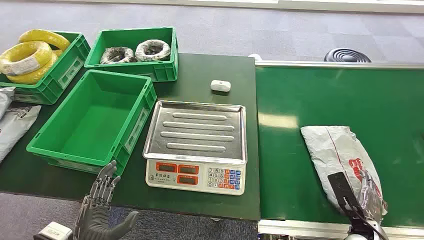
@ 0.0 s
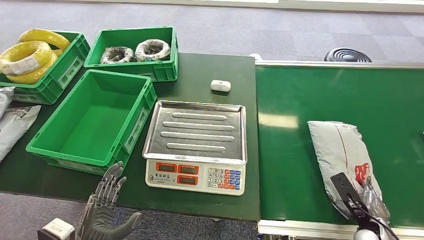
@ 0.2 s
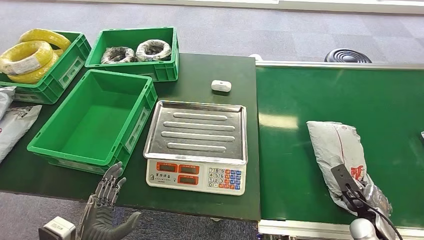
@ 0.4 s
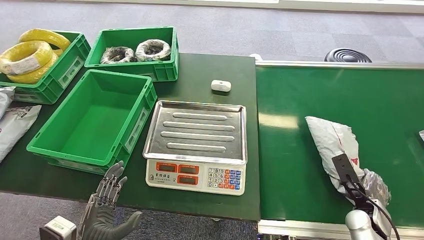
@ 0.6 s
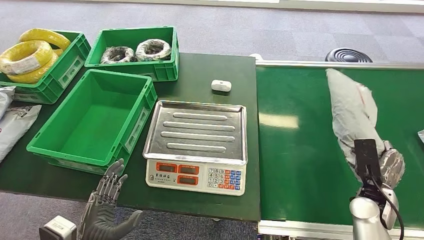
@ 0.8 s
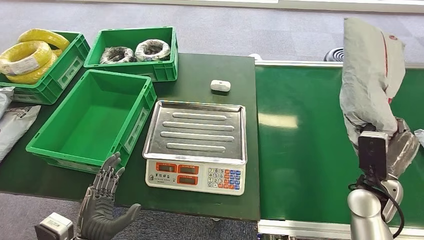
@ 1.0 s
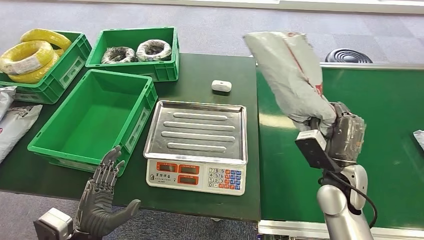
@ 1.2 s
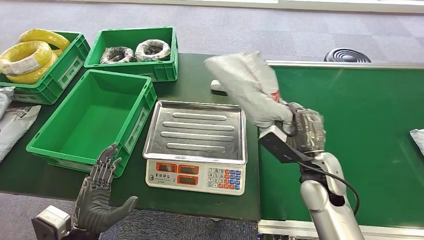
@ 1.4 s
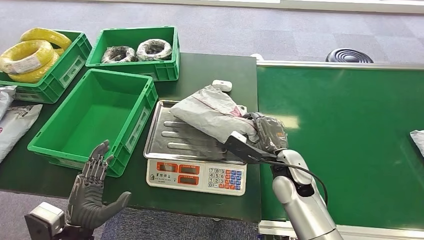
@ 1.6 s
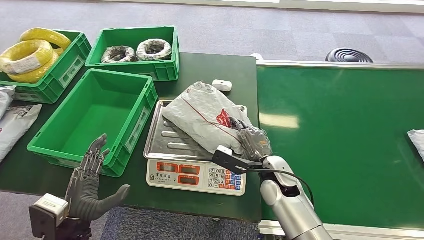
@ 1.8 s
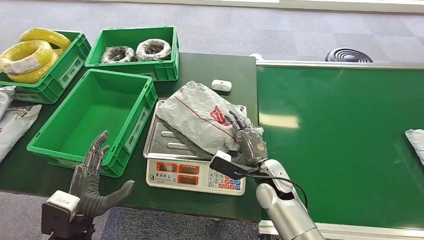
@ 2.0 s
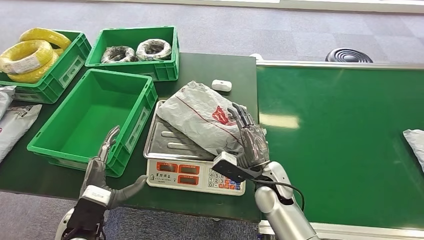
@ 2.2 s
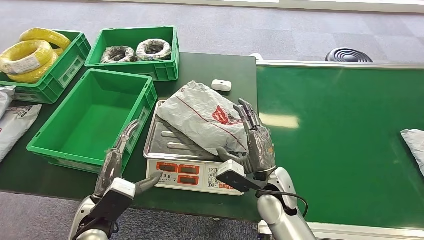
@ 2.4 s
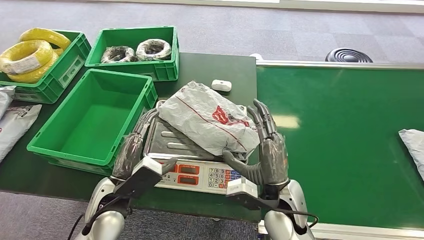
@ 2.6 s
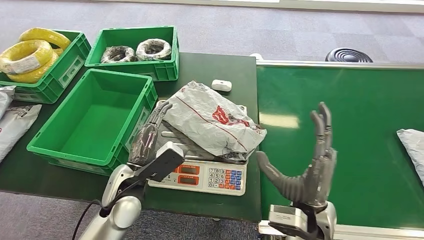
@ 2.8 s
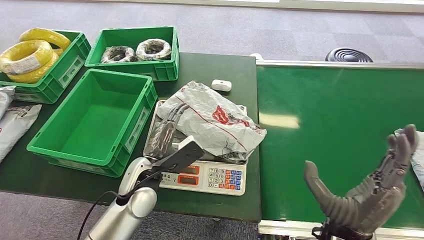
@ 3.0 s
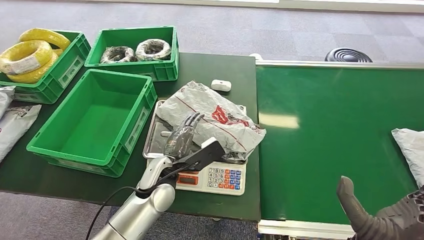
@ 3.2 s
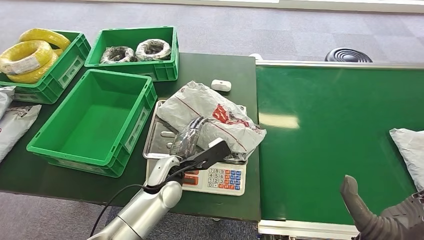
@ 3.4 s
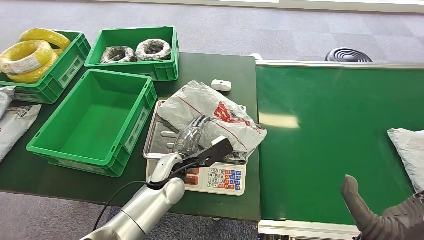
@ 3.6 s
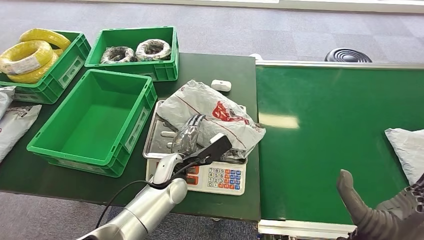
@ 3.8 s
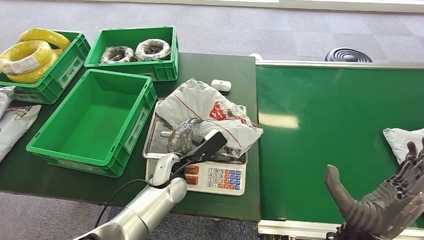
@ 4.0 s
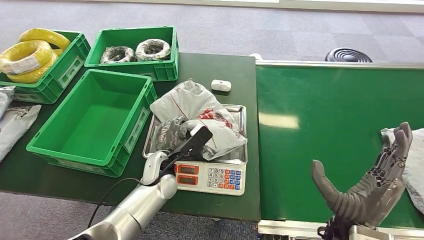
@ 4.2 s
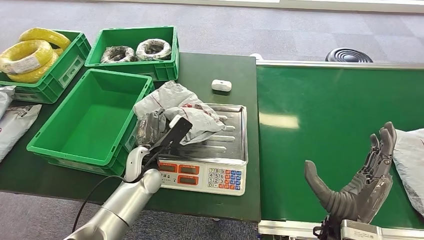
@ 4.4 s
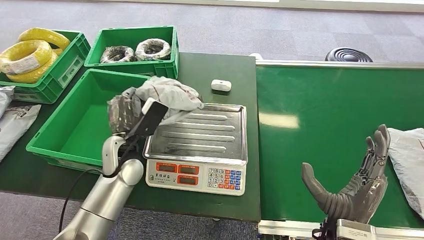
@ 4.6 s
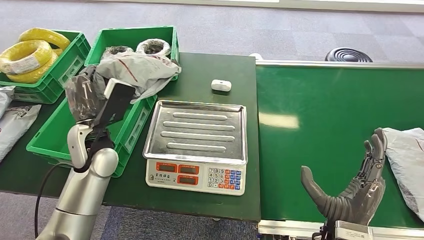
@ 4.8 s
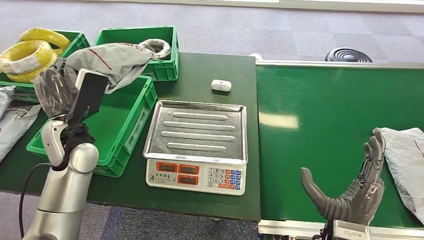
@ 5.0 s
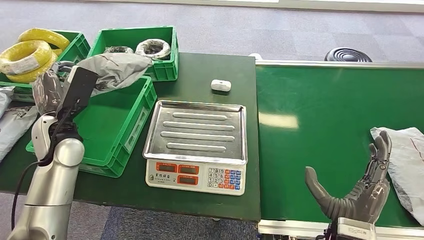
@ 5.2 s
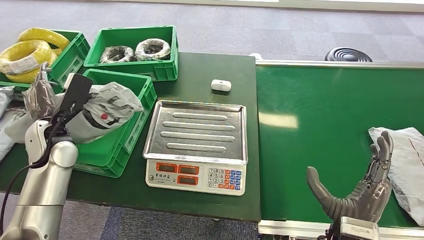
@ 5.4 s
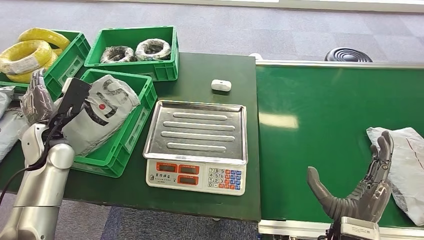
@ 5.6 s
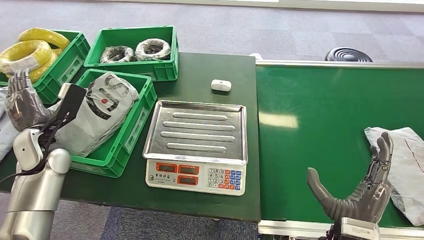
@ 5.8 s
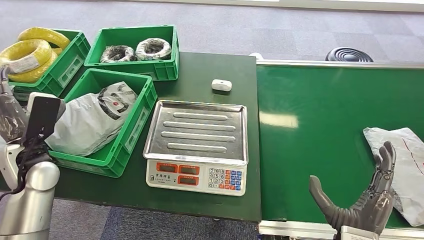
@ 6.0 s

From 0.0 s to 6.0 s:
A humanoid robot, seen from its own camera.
Step, from 0.0 s to 0.8 s: Pick up the package from the conveyor belt.
Step, from 1.2 s to 2.0 s: Place the package onto the inbound machine.
Step, from 2.2 s to 4.6 s: Pick up the package from the inbound machine.
Step, from 4.8 s to 6.0 s: Place the package into the parcel locker.
From 3.0 s to 4.4 s: The left hand moves forward, some 5 cm.

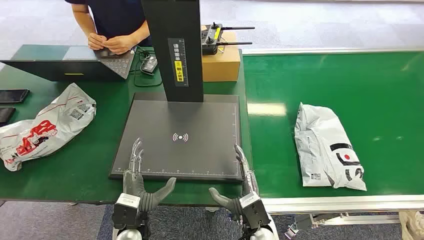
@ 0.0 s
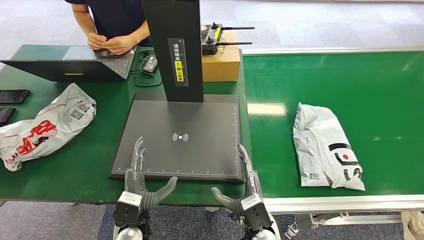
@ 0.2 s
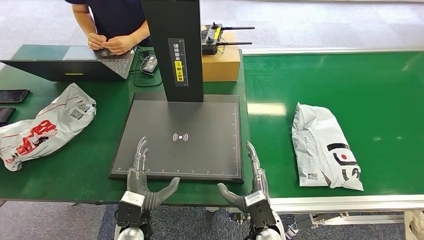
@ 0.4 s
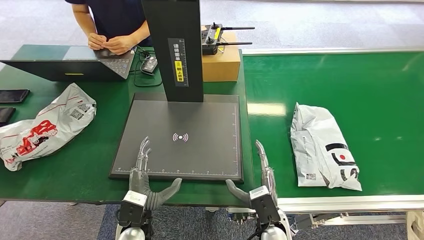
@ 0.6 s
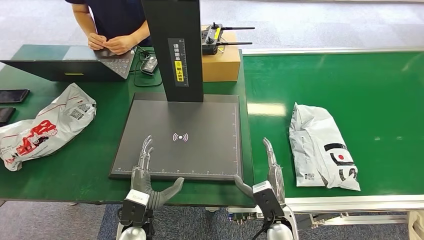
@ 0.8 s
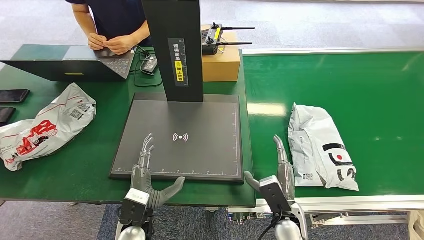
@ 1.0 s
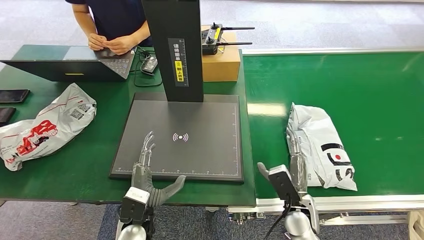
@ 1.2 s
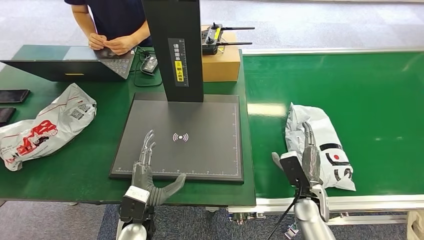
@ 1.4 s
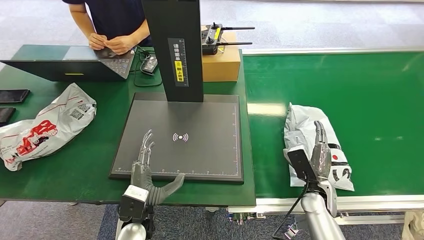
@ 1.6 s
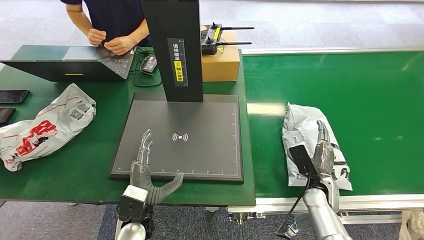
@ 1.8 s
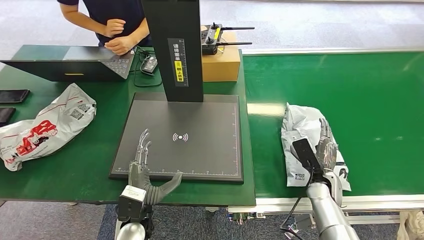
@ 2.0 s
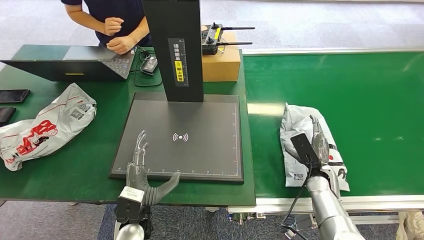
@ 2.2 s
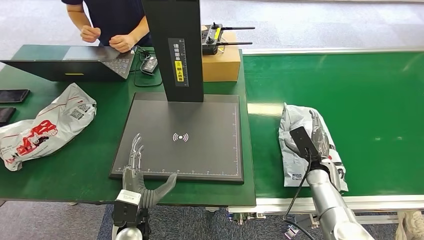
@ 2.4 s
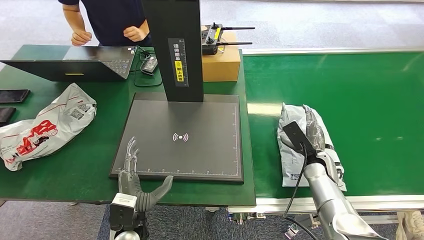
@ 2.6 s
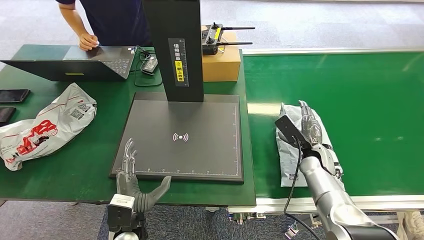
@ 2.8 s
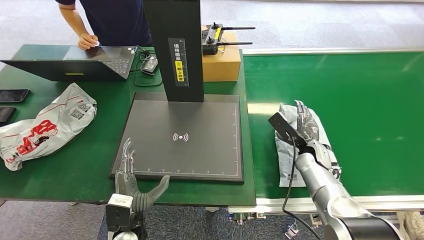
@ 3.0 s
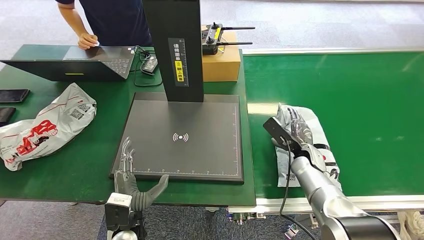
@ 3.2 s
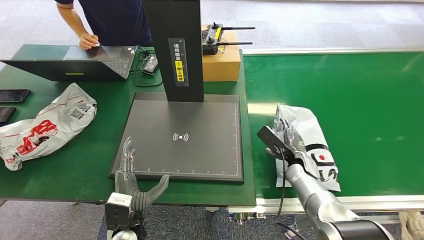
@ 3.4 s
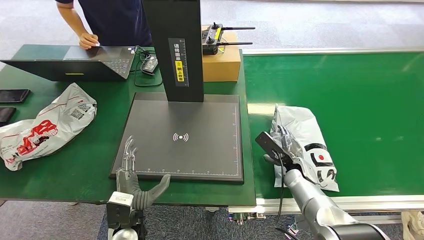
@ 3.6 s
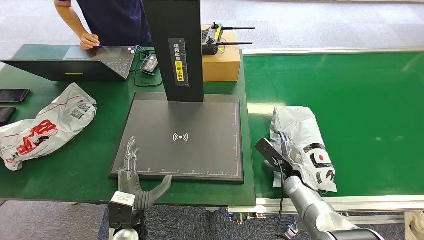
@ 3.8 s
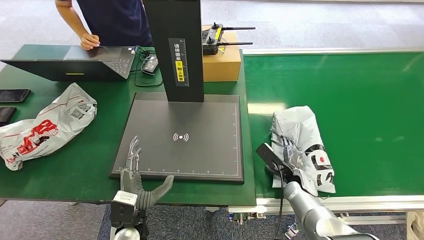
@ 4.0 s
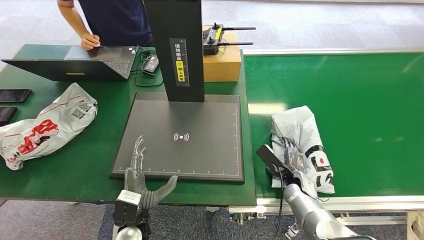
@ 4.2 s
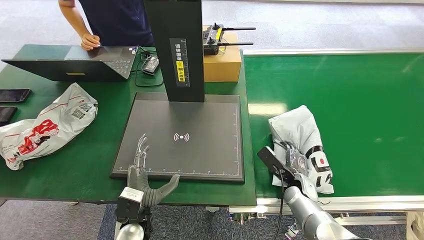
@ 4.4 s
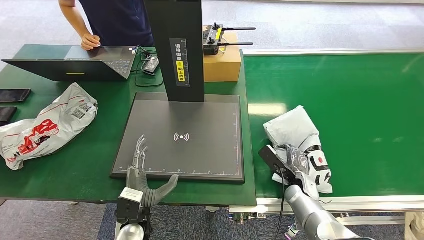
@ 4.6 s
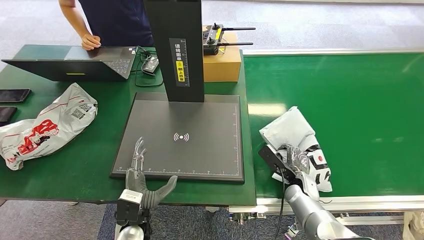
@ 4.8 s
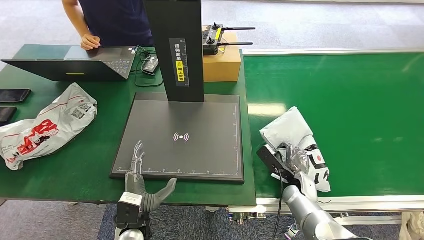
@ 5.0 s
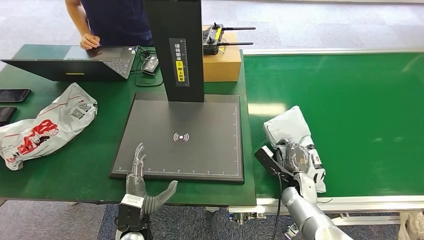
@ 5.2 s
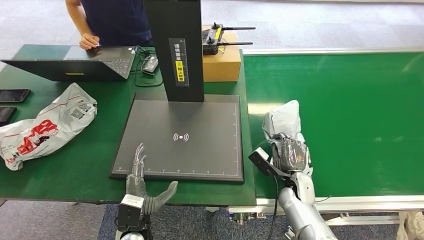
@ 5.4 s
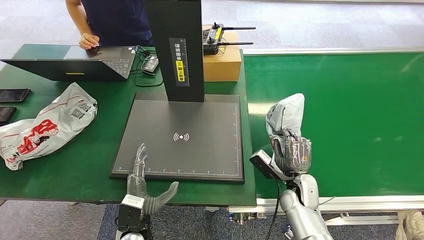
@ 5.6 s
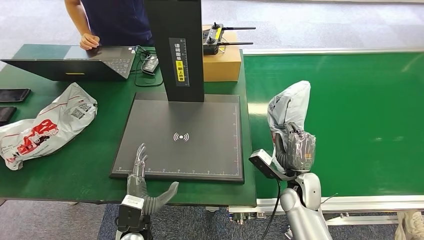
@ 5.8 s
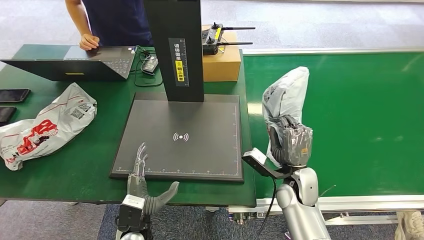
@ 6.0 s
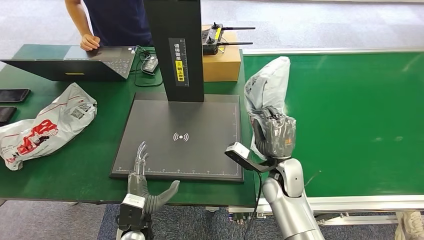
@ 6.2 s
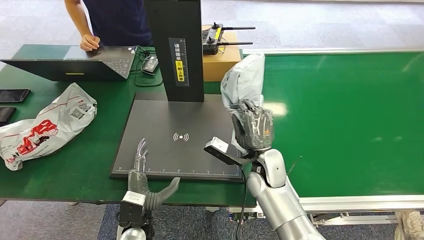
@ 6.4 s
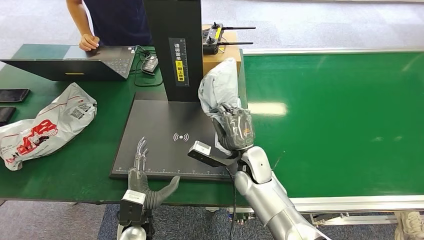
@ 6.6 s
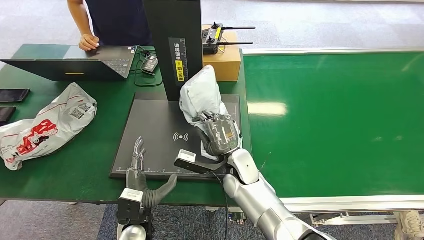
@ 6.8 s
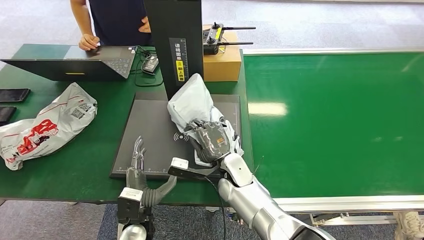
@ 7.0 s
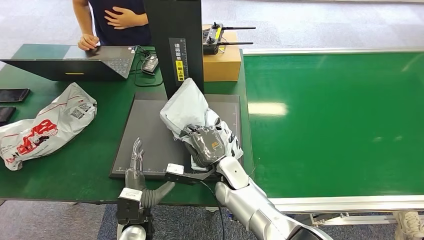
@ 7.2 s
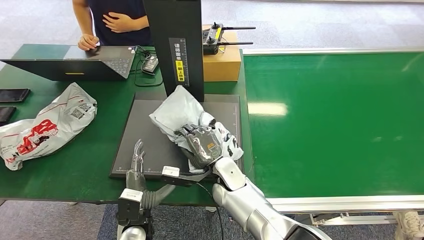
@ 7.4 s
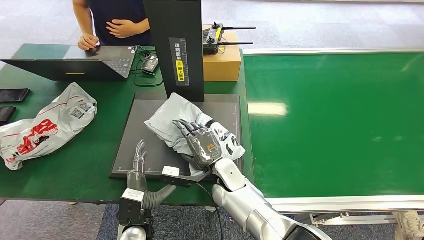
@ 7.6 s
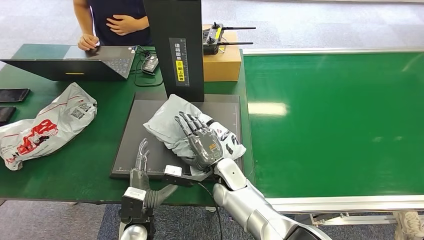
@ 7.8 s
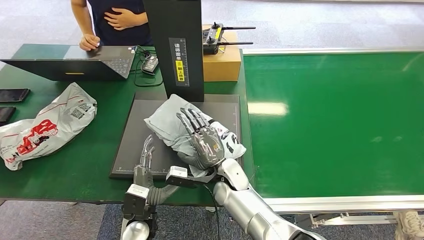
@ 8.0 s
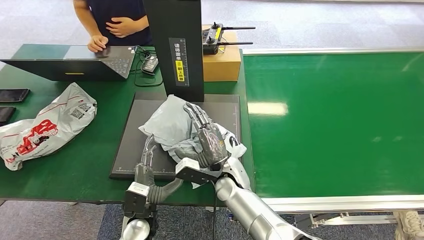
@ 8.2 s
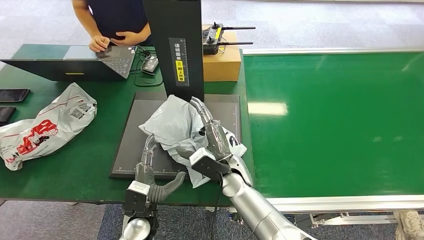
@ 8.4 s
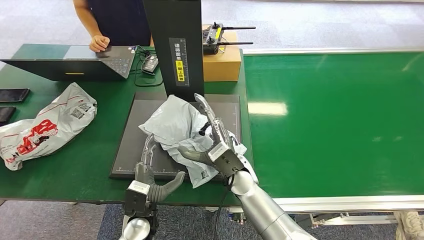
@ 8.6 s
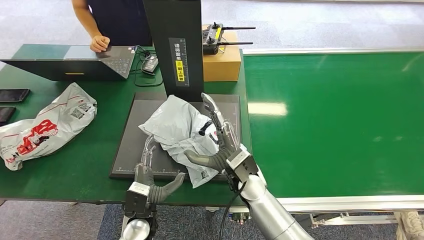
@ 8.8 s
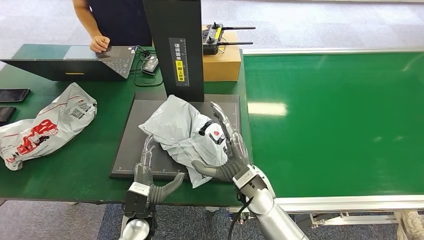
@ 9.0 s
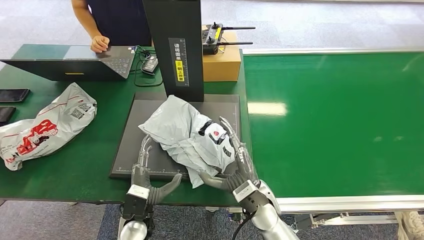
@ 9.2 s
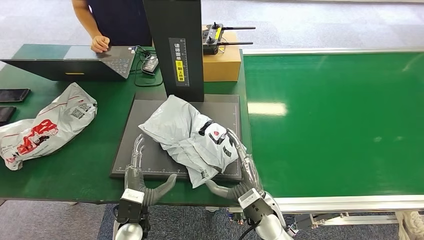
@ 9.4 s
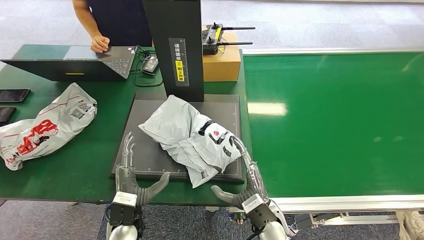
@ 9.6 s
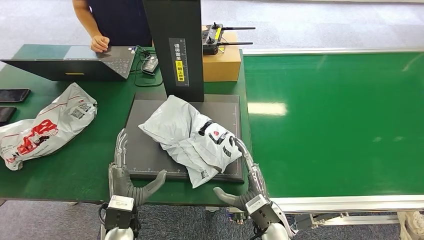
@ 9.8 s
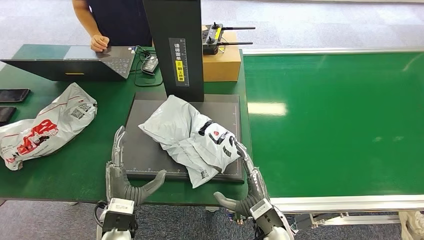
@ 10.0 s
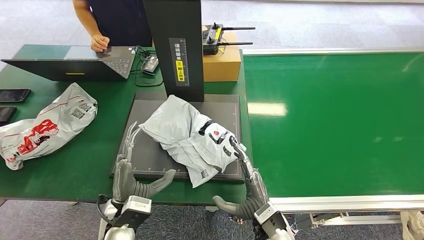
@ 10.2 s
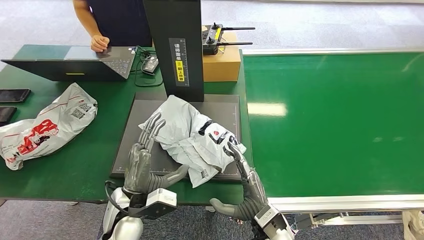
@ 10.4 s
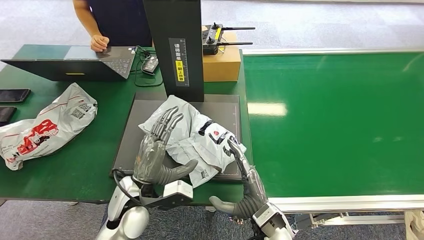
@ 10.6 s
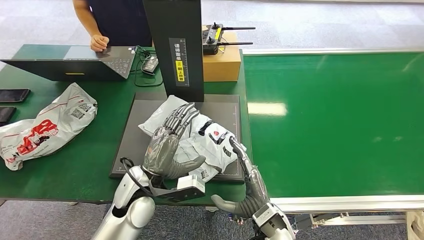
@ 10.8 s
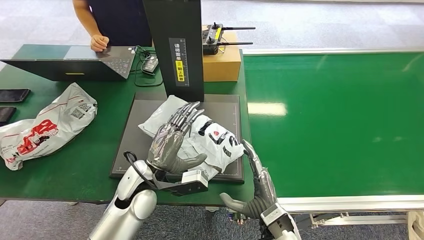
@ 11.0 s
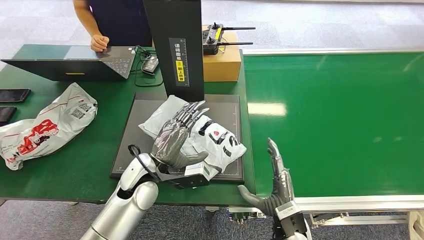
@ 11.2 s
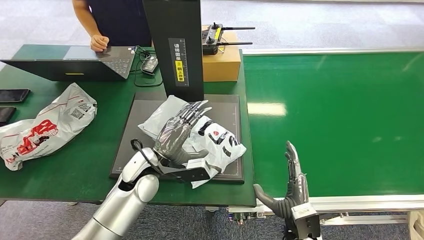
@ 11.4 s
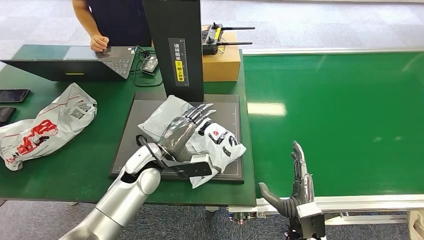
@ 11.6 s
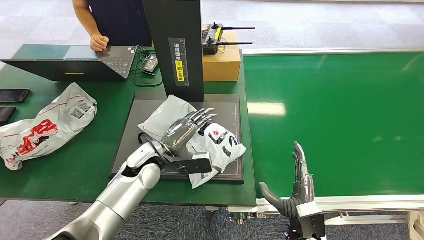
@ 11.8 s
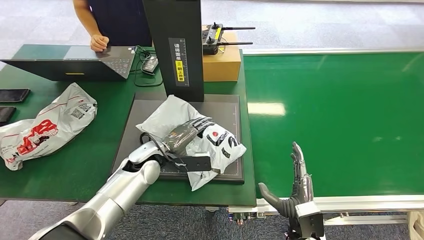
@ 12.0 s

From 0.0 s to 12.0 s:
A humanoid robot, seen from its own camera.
Step, from 0.0 s to 6.2 s: Pick up the package from the conveyor belt.
Step, from 6.4 s to 9.2 s: Place the package onto the inbound machine.
From 1.6 s to 3.0 s: The right hand shifts some 10 cm forward.
From 3.0 s to 4.4 s: The right hand goes about 10 cm downward and backward.
From 4.4 s to 6.0 s: The right hand moves upward and to the left, roughly 10 cm.
From 6.0 s to 7.6 s: The right hand goes roughly 20 cm to the left.
From 7.6 s to 9.0 s: The right hand travels to the right by roughly 5 cm.
From 9.0 s to 10.4 s: The left hand moves upward, some 10 cm, while the right hand heads backward and downward, covering approximately 10 cm.
From 10.4 s to 12.0 s: The right hand is displaced to the right by some 10 cm. The left hand travels forward by roughly 15 cm.
